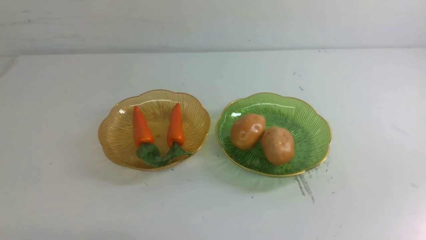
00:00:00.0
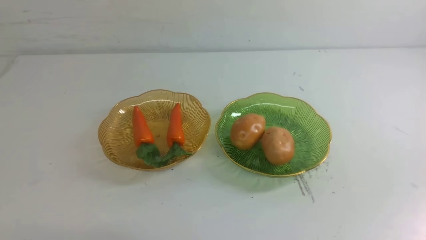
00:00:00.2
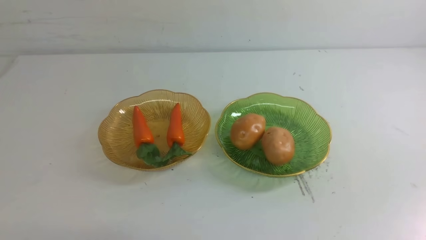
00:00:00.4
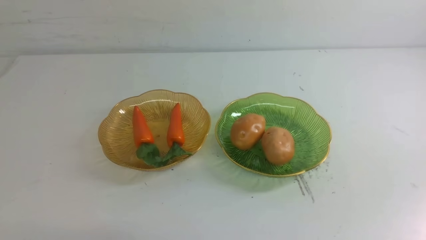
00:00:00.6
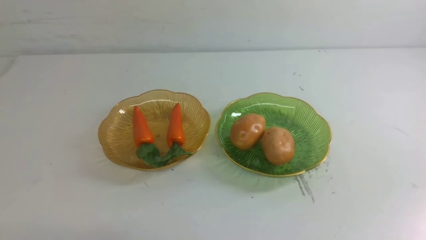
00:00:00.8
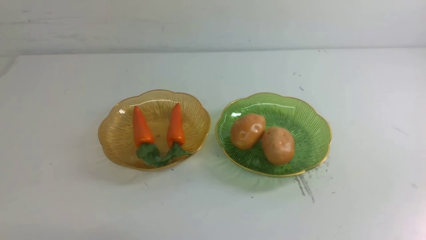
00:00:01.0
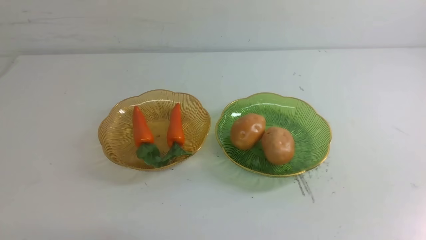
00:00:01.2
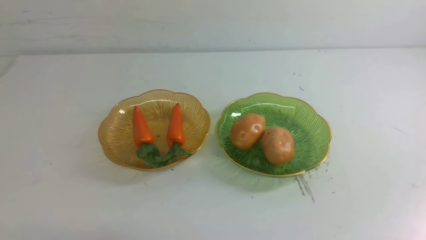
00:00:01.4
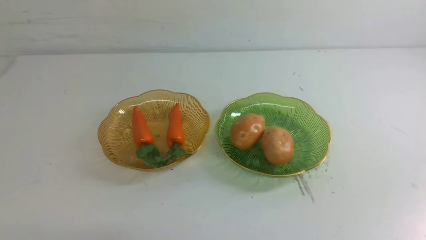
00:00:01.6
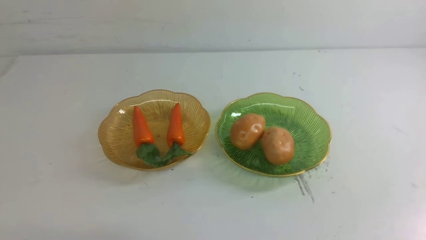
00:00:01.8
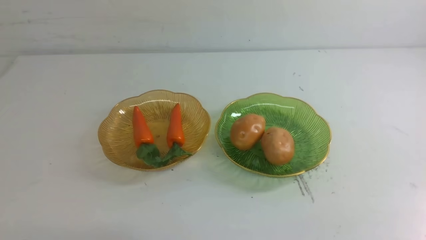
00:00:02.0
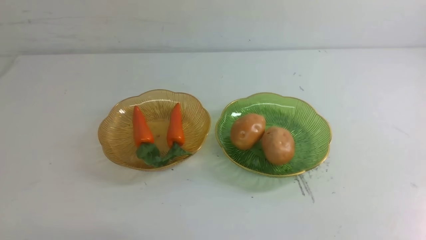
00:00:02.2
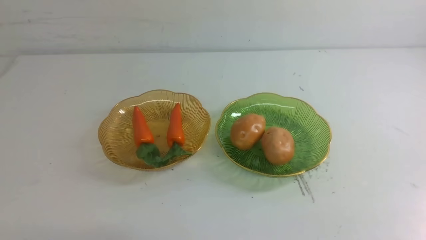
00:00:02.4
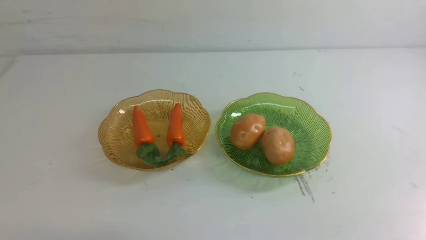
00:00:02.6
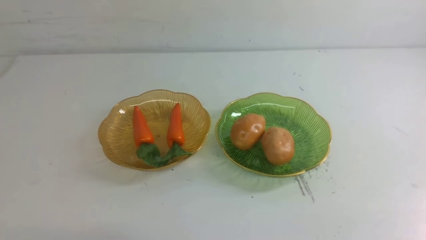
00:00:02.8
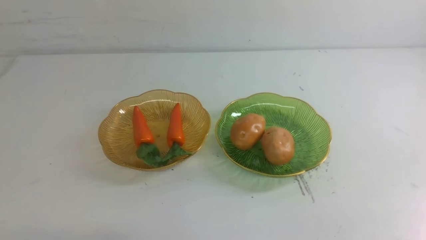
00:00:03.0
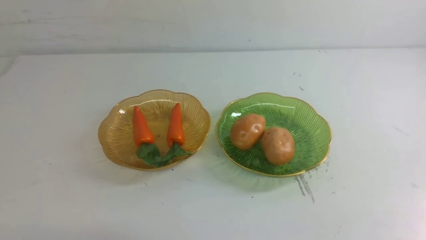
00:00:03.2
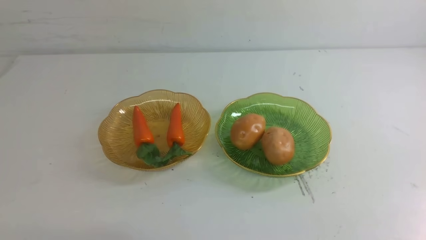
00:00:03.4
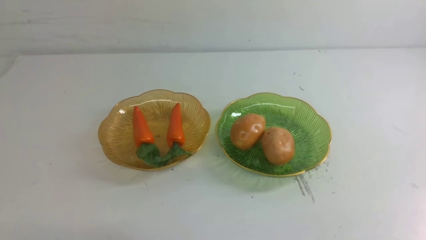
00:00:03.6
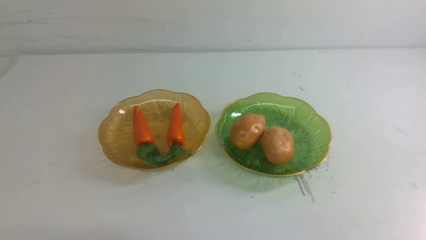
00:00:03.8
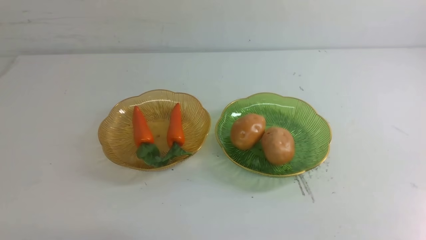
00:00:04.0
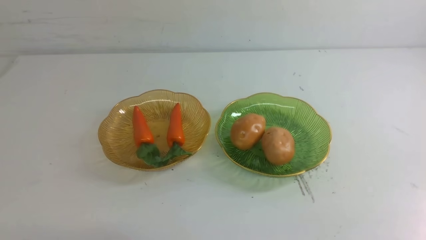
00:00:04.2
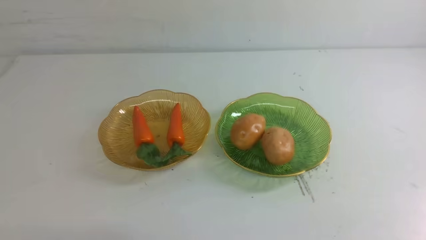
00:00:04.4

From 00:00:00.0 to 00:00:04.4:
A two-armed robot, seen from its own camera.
From 00:00:03.0 to 00:00:04.4: Neither gripper changes place.
